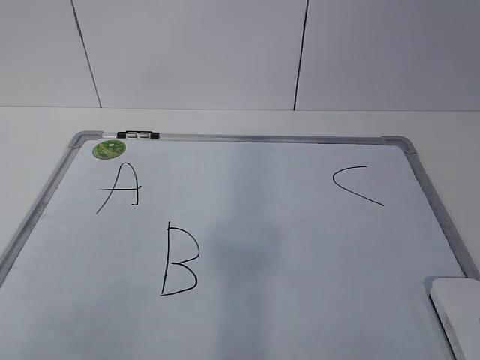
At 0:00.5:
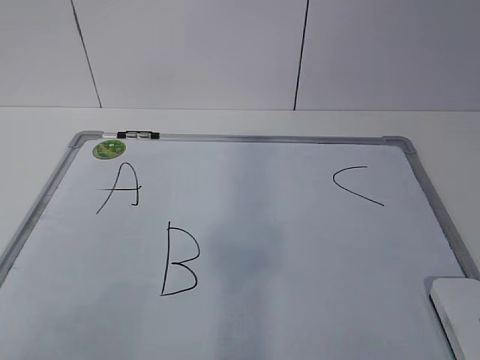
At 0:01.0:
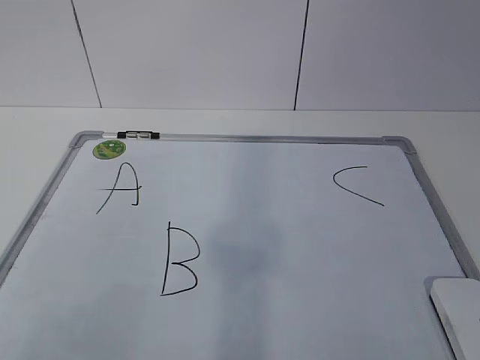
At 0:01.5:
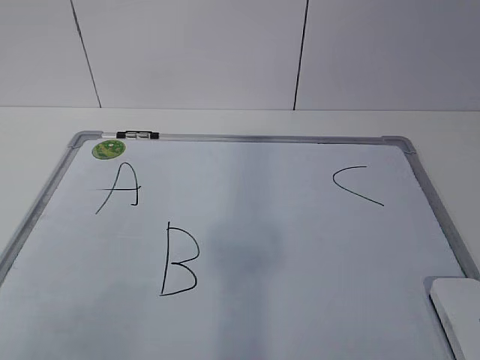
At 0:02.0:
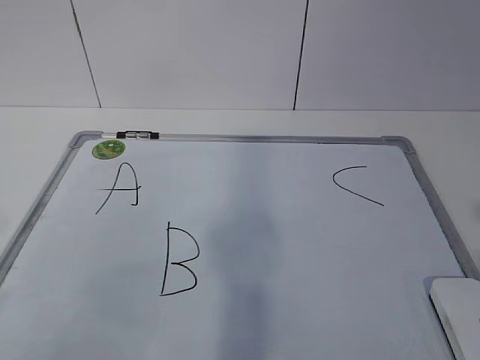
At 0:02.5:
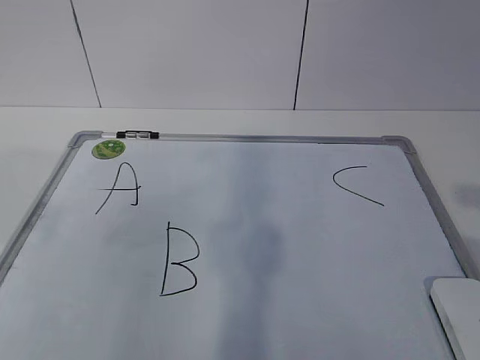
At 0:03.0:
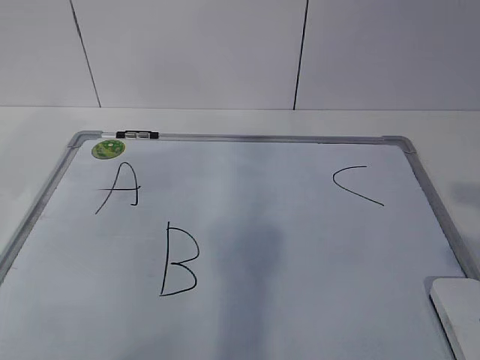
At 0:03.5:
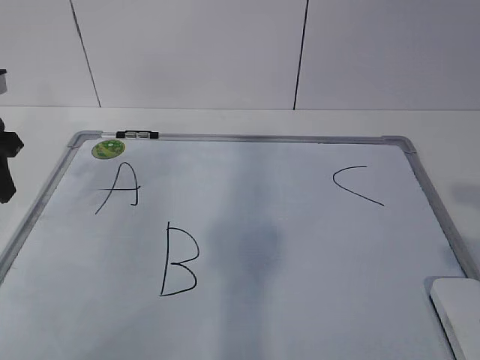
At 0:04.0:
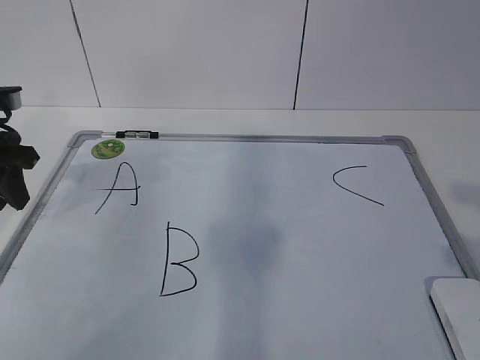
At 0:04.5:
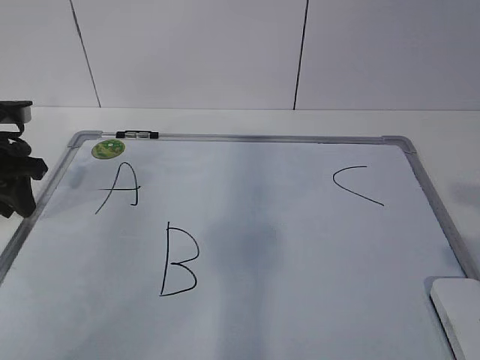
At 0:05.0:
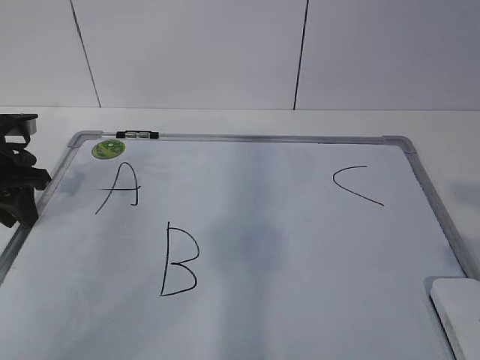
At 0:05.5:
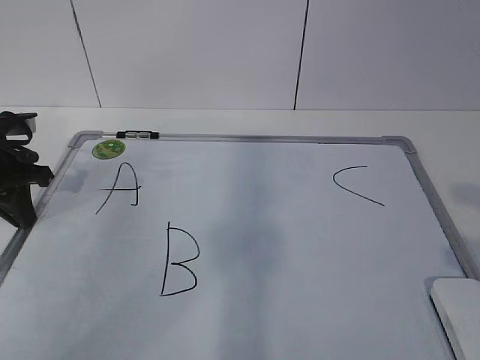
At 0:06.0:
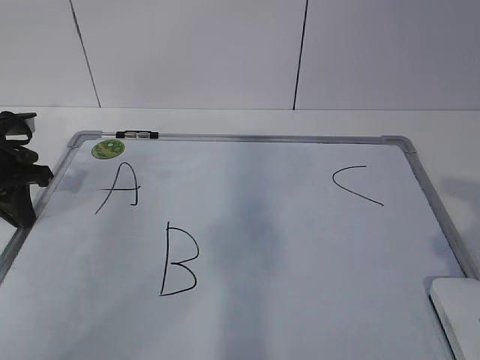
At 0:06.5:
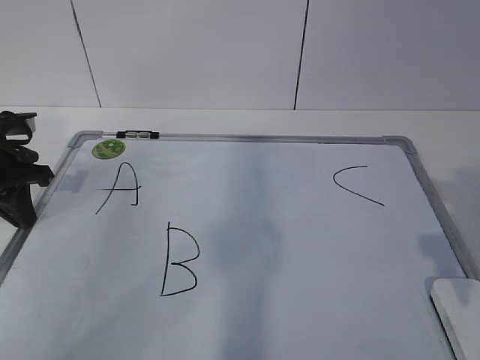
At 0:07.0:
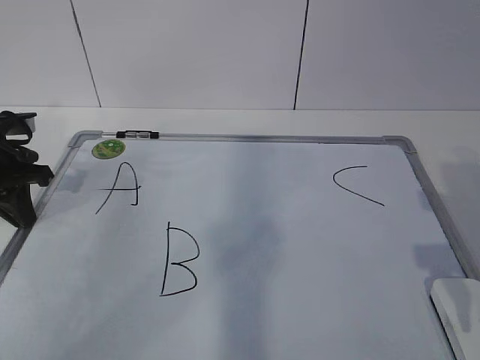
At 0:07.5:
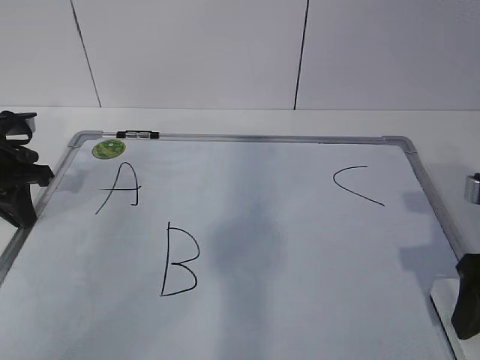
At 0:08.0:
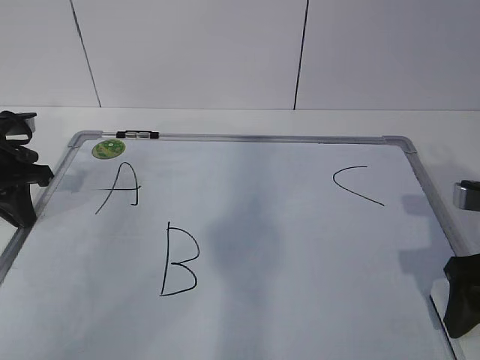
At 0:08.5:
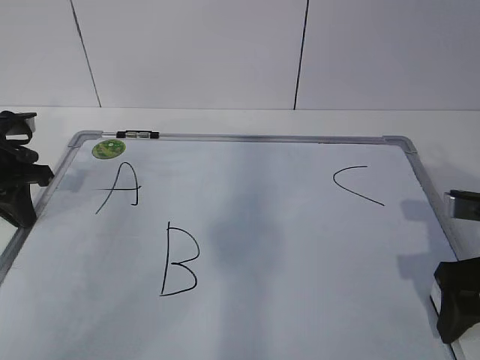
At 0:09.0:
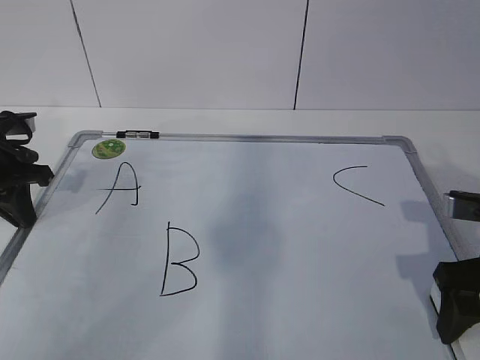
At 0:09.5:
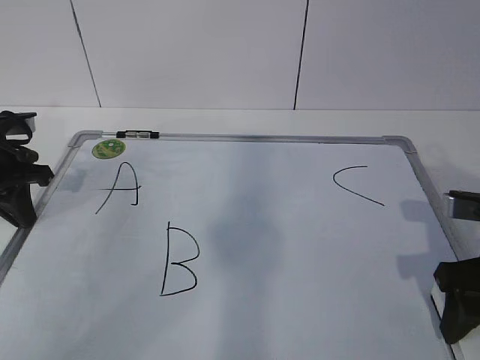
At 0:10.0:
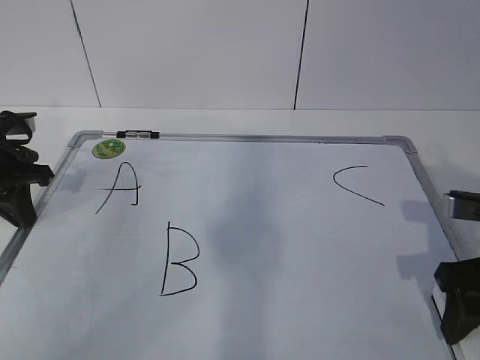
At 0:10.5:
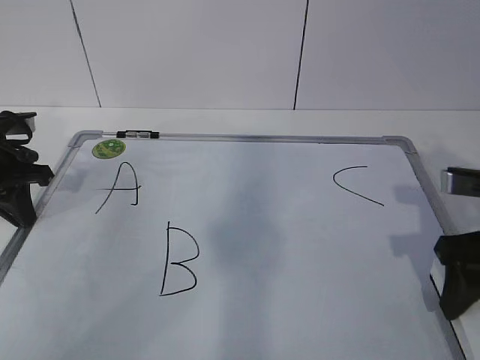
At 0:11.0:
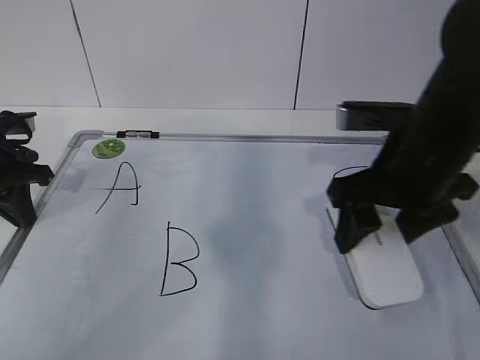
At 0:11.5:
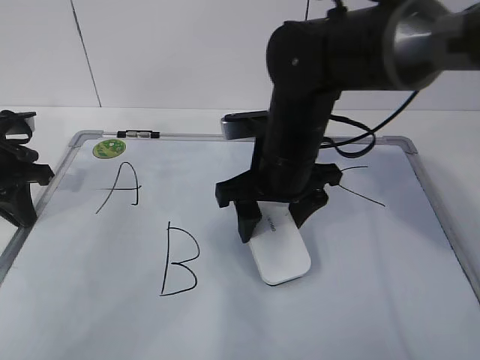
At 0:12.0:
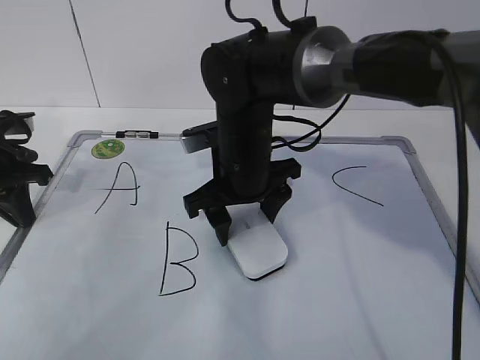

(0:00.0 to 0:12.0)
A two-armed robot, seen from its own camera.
Task of the whole recording: pick up the eraser on the blackboard and erase the letter "B".
Step, 0:00.0 - 0:04.5: Hold the drawing board steady with your left hand.
Step, 0:05.0 - 0:08.0: Grab the eraser with your right hand.
0:02.0 - 0:04.0: The left gripper goes roughly 35 cm forward.
0:04.0 - 0:06.0: The left gripper closes its fingers.
0:06.0 - 0:08.0: The right gripper travels forward and downward by approximately 15 cm.
0:08.0 - 0:10.0: The right gripper closes up.
0:10.0 - 0:12.0: The right gripper goes roughly 30 cm to the left and forward.

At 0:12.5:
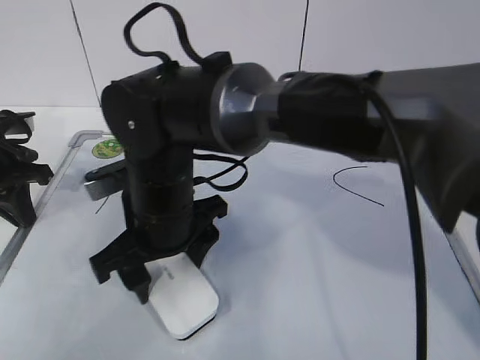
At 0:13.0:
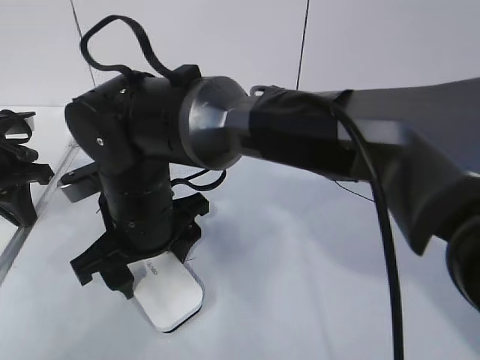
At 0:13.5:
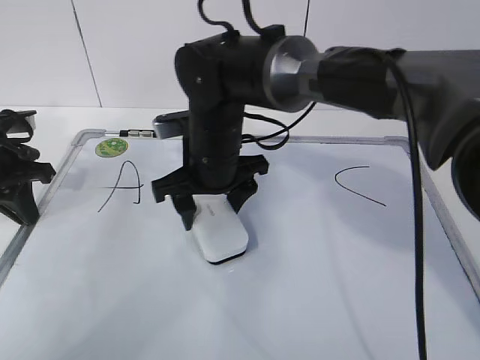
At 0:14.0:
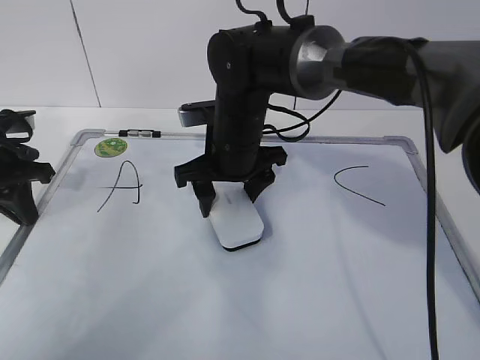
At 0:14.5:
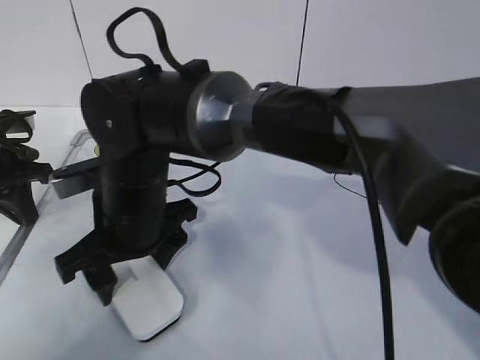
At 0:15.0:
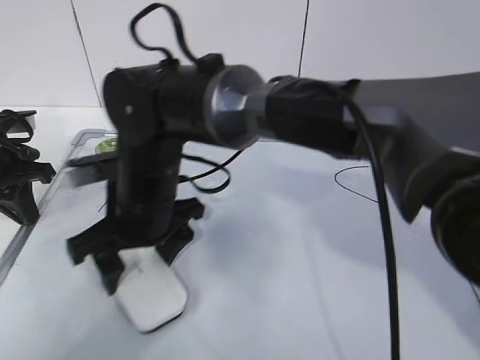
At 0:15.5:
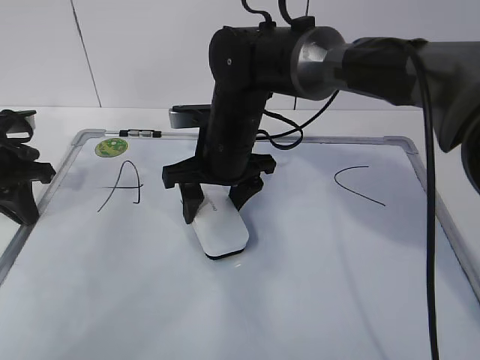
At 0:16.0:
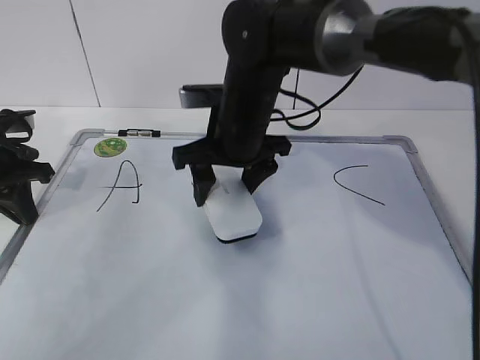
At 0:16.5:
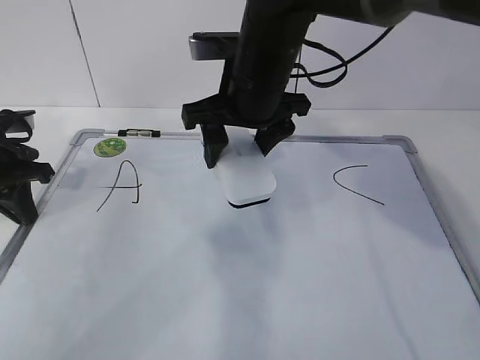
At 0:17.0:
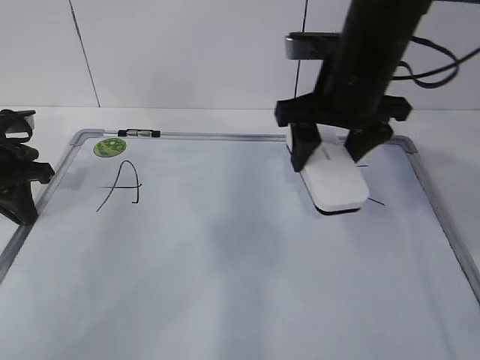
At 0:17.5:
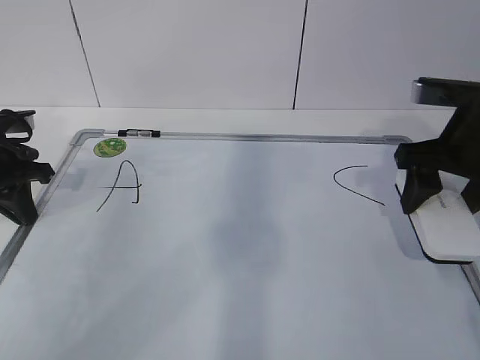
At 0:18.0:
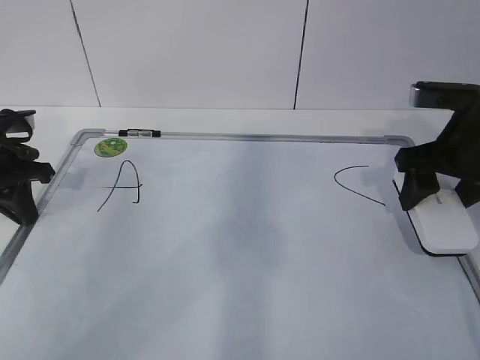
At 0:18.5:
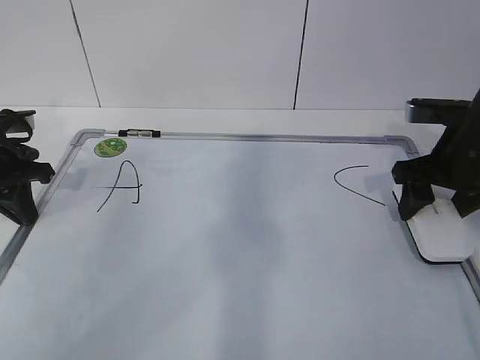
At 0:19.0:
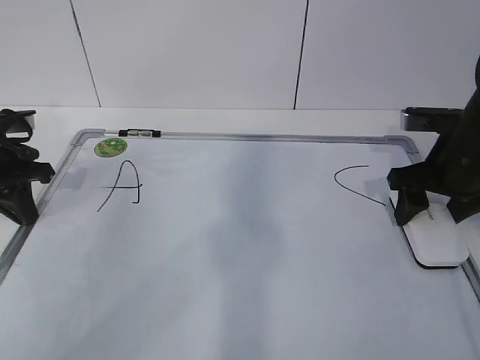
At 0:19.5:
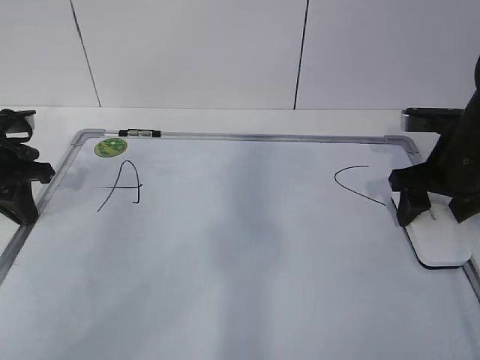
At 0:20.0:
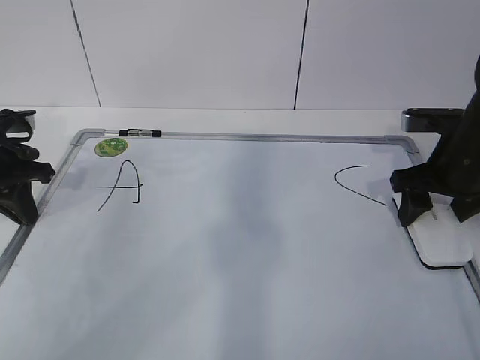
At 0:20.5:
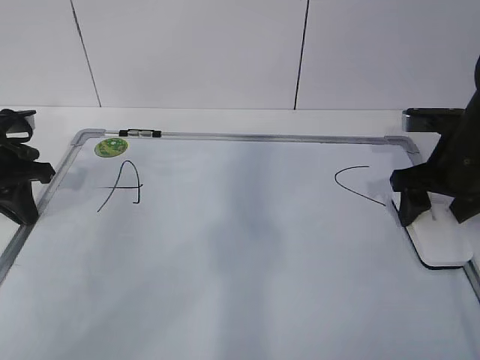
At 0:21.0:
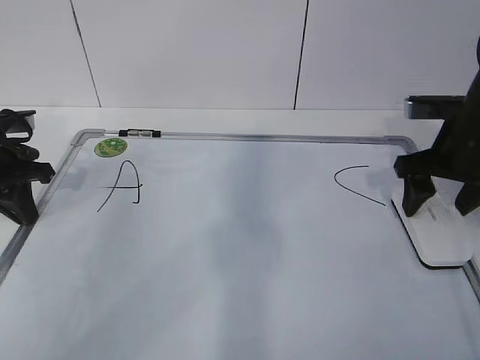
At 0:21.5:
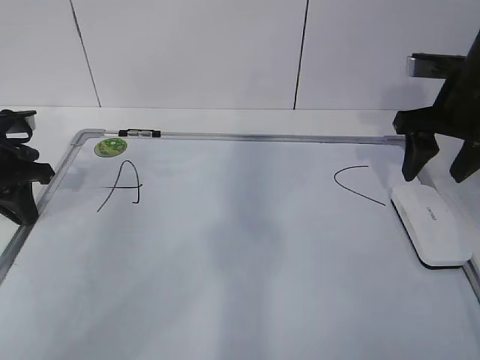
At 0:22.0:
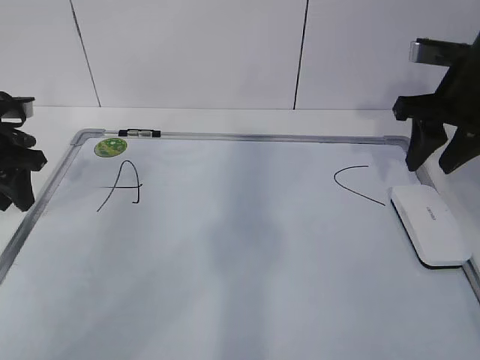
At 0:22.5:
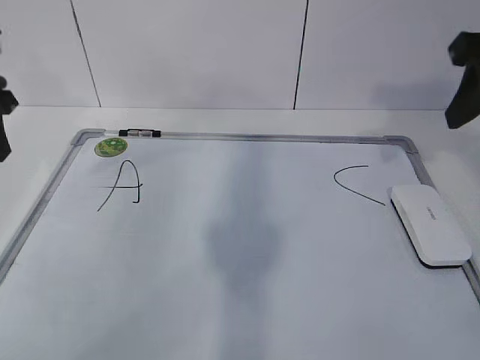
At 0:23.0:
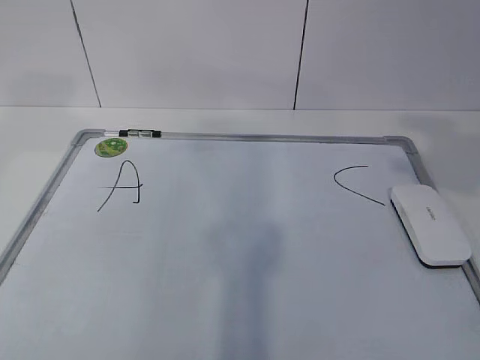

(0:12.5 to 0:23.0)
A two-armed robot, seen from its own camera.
Task of the whole recording: pick up the eraser on the blackboard and erase the letter "B".
Step, 0:13.5 - 0:17.0: Put down the eraser with your right hand.
0:12.5 - 0:14.5: The right gripper travels forward and back again, approximately 10 cm each way.
0:14.5 - 0:16.5: The right gripper goes roughly 15 cm to the right, upward and forward.
0:16.5 - 0:19.0: The right gripper is displaced to the right by approximately 25 cm.
0:19.0 - 0:21.0: Neither gripper changes place.
0:21.0 - 0:23.0: Both grippers move upward and backward, about 25 cm. The right gripper closes, while the left gripper opens.

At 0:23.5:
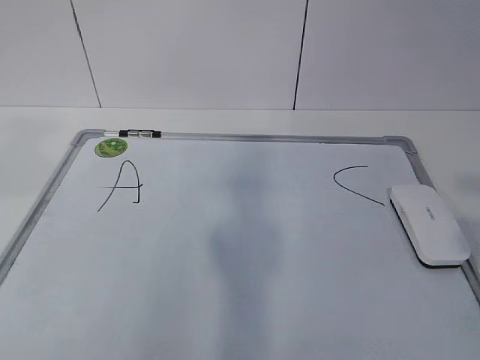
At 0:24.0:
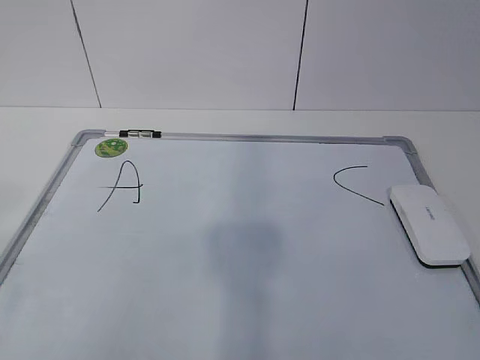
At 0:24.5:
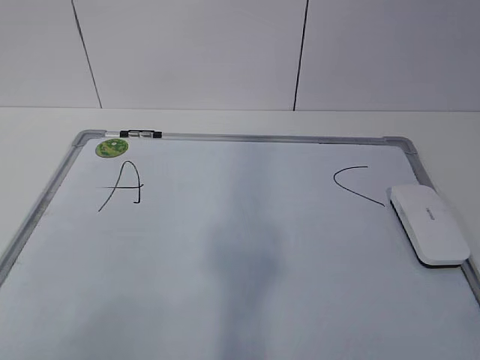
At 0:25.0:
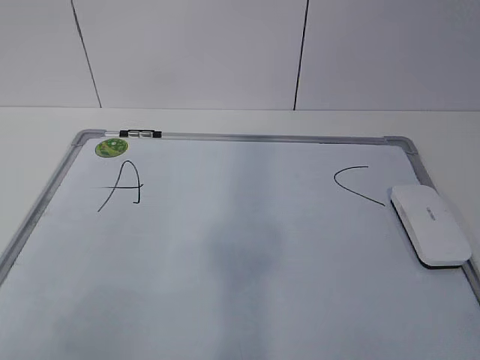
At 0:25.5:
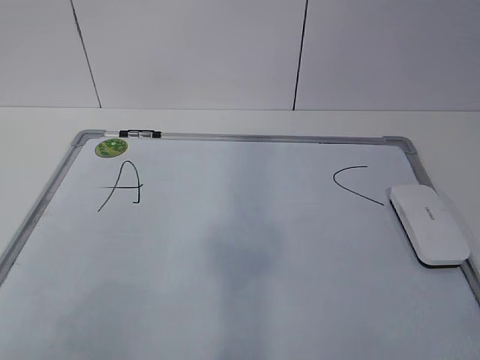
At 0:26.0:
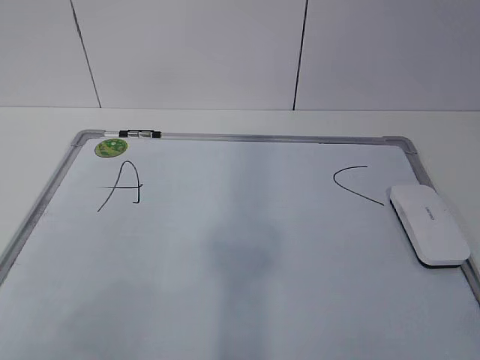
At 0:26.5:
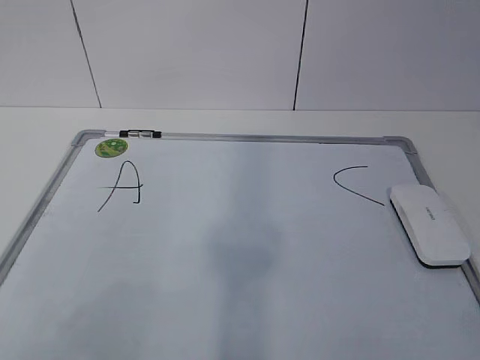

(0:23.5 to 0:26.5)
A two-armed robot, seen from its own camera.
Task of the whole recording: pick up the eraser on the blackboard and erase the letter "B".
0:23.5 - 0:25.0: The left gripper travels downward and backward by some 20 cm.
